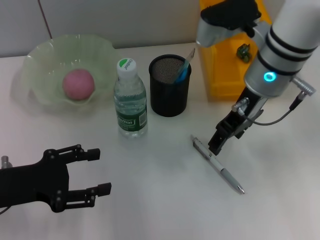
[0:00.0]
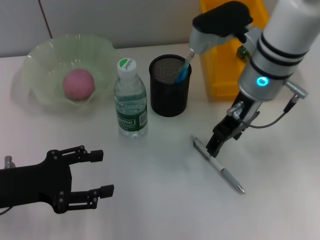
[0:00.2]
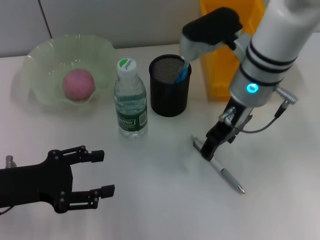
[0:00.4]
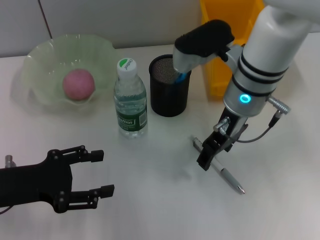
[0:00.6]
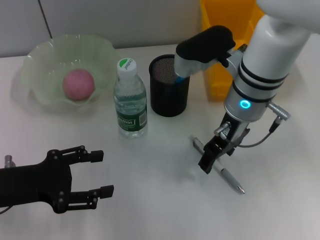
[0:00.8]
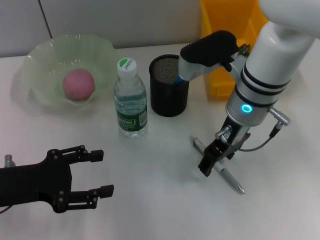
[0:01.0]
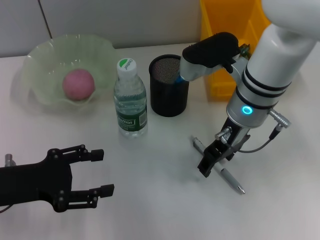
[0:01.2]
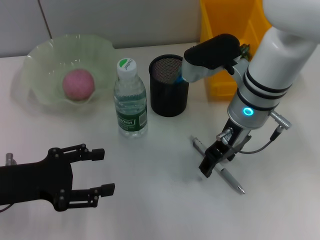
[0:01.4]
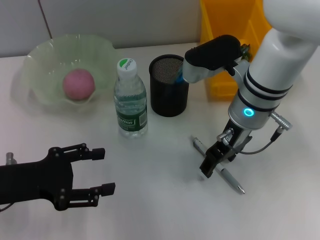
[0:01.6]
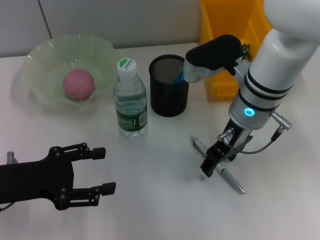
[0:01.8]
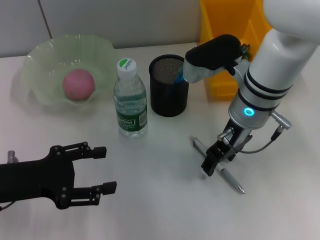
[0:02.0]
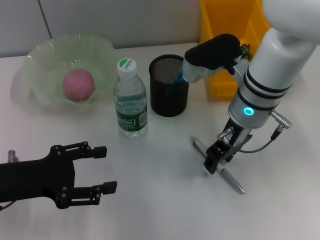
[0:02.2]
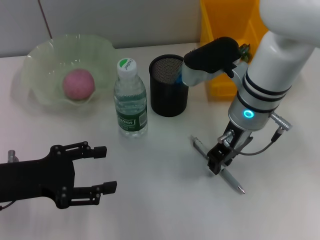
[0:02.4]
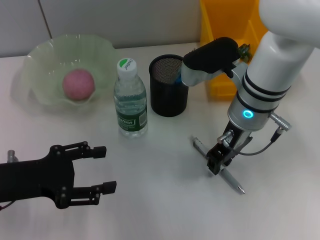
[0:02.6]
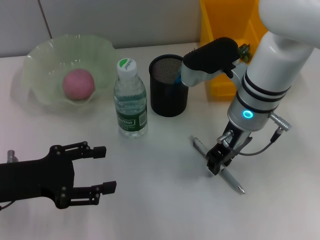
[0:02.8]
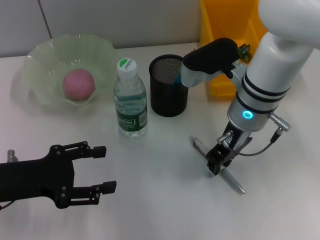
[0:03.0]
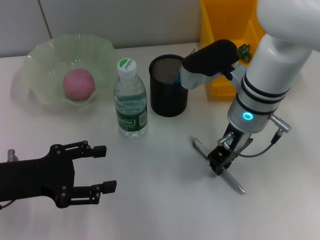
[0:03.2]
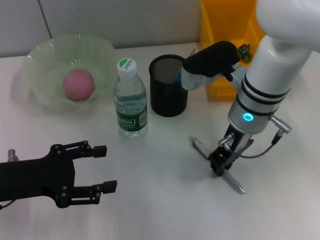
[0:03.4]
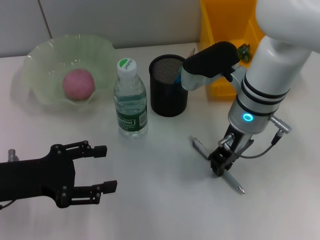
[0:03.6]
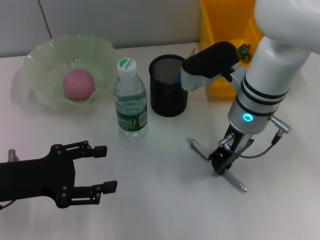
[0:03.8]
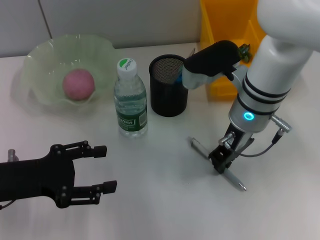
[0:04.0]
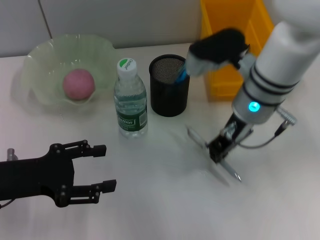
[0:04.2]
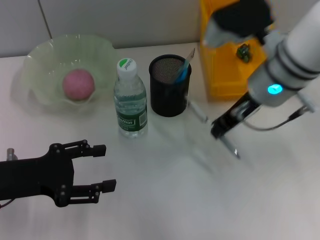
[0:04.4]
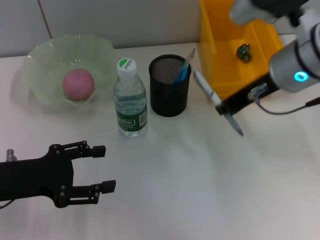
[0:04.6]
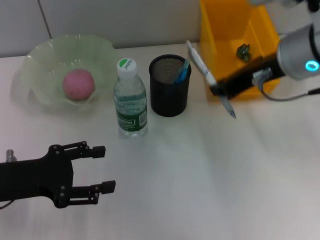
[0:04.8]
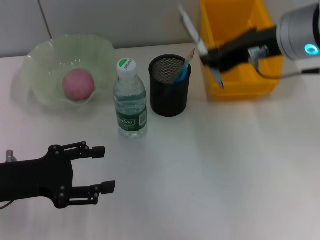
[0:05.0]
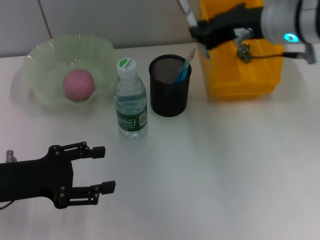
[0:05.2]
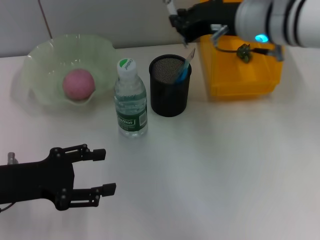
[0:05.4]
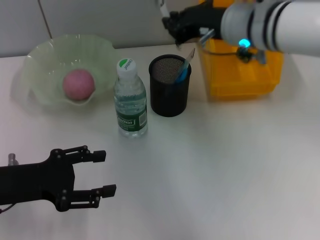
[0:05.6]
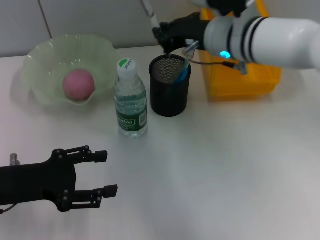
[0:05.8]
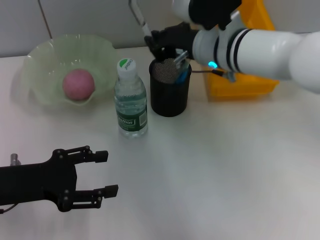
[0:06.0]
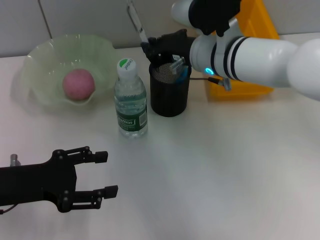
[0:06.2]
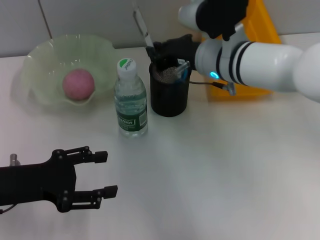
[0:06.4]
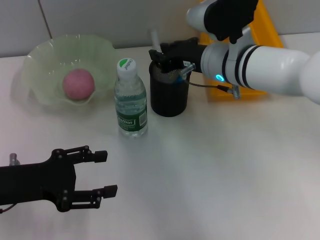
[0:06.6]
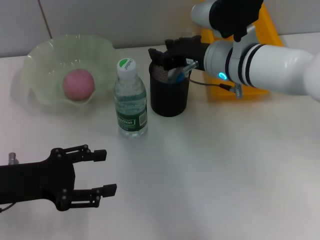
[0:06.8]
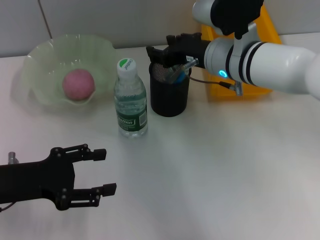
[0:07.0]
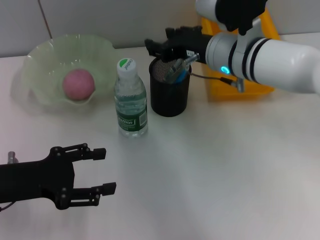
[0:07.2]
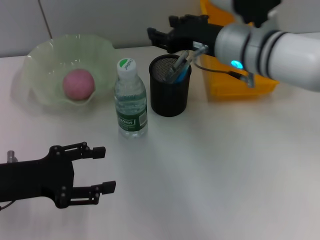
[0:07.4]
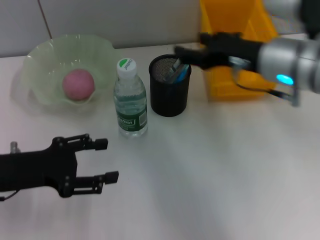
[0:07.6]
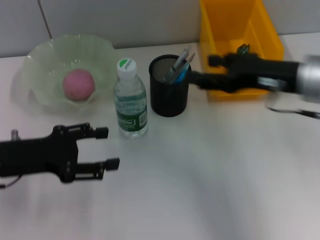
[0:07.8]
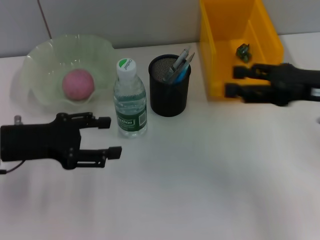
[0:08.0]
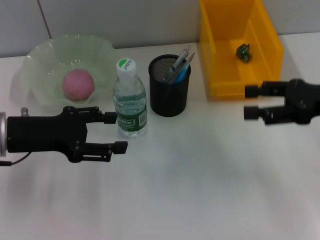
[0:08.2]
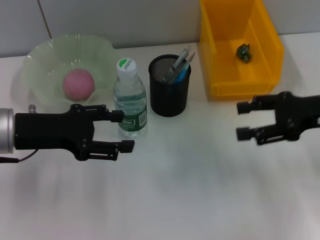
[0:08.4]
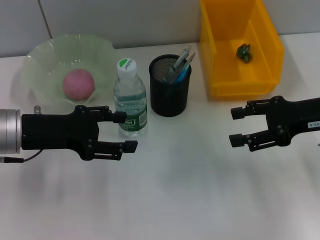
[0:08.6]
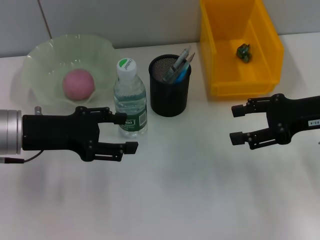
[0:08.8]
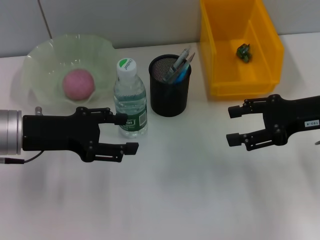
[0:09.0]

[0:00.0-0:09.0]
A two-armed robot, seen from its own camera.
Step, 0:00.0 to 0:03.8: Grab the gray spring-action pen with the right hand.
Step, 0:04.0 to 0:06.6: Place the gray spring-action pen into the pen holder with the right hand.
0:00.0 to 0:01.6: The right gripper moves approximately 5 cm.
0:01.6 to 0:03.0: The right gripper closes.
0:03.0 to 0:04.4: The right gripper shifts approximately 5 cm upward.
0:04.4 to 0:06.0: The right gripper moves forward, some 5 cm.
0:06.0 to 0:07.6: The right gripper goes roughly 10 cm to the right and backward, and opens its fingers.
0:07.6 to 0:09.0: The left gripper moves roughly 5 cm, while the right gripper moves to the right, roughly 10 cm.

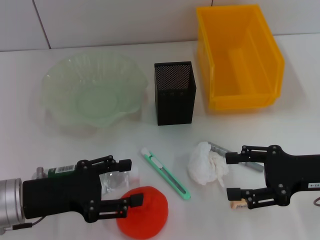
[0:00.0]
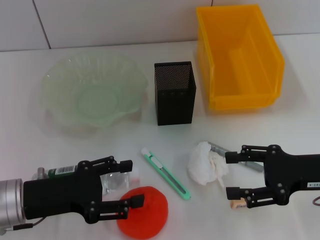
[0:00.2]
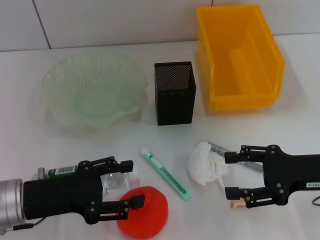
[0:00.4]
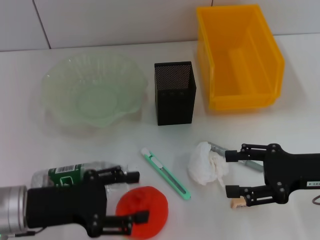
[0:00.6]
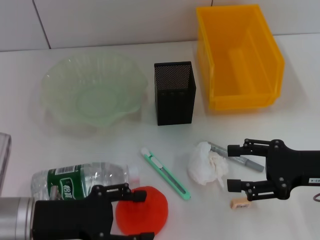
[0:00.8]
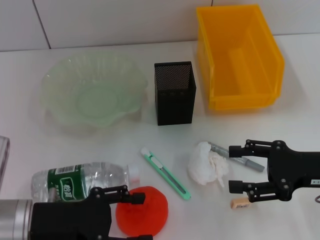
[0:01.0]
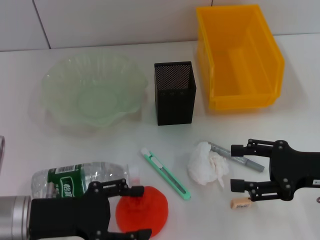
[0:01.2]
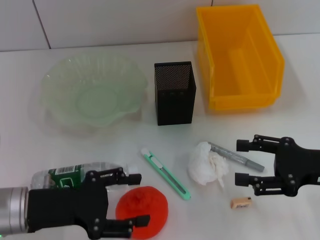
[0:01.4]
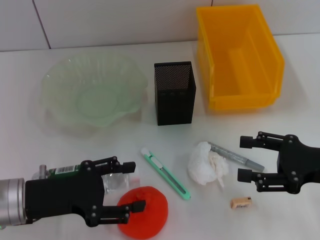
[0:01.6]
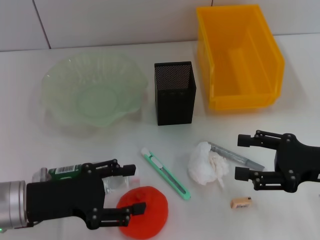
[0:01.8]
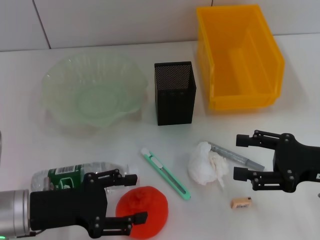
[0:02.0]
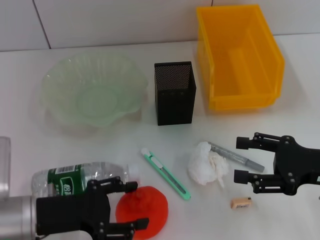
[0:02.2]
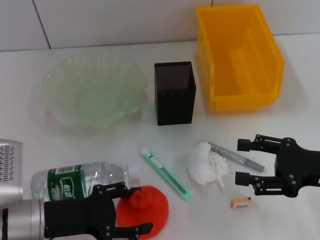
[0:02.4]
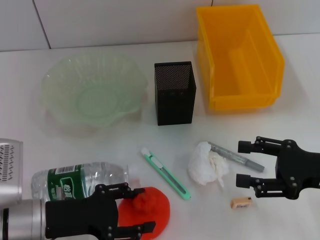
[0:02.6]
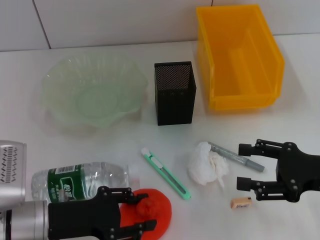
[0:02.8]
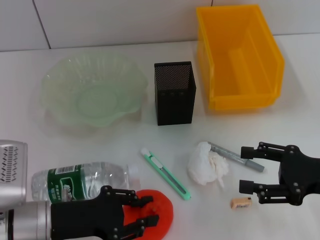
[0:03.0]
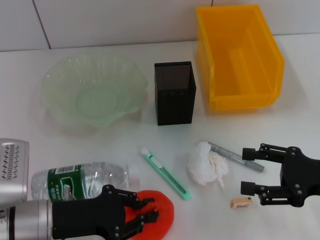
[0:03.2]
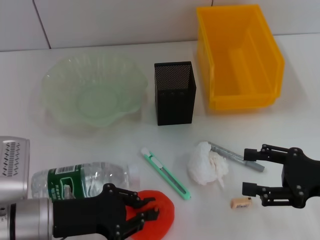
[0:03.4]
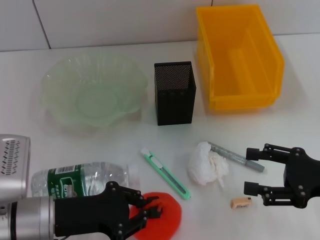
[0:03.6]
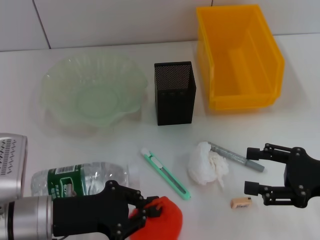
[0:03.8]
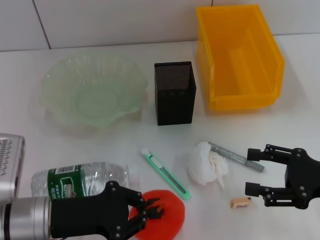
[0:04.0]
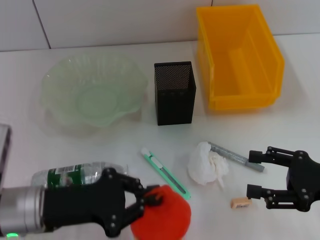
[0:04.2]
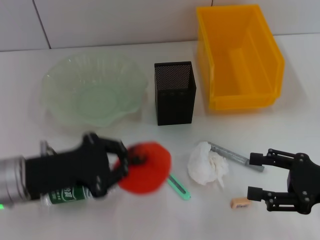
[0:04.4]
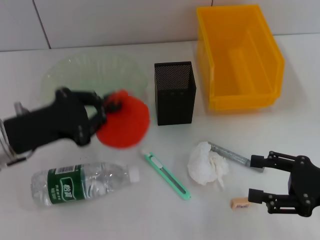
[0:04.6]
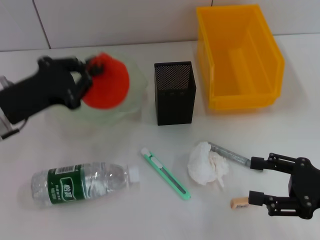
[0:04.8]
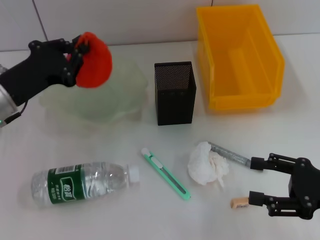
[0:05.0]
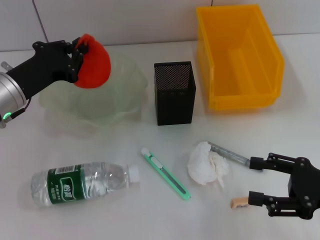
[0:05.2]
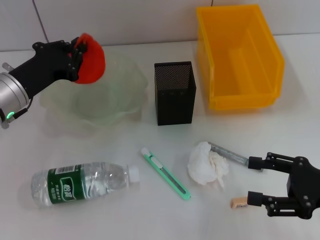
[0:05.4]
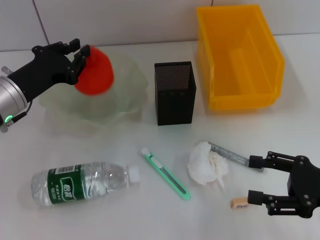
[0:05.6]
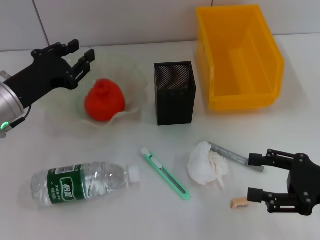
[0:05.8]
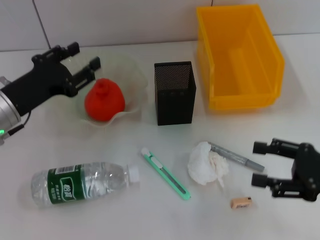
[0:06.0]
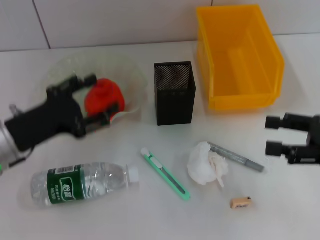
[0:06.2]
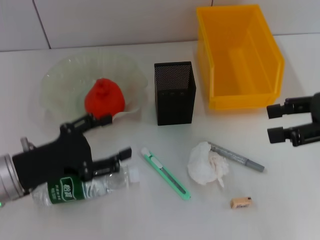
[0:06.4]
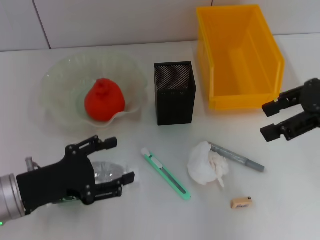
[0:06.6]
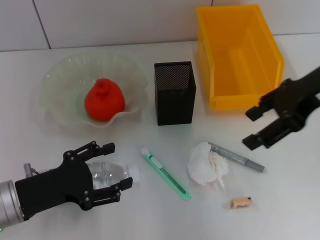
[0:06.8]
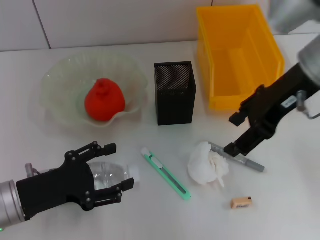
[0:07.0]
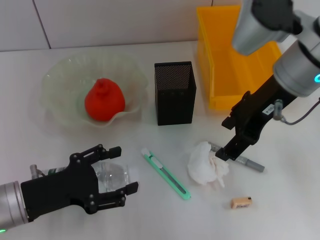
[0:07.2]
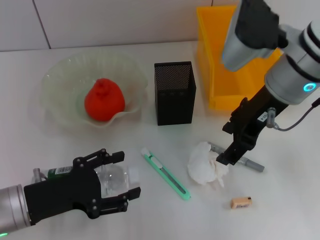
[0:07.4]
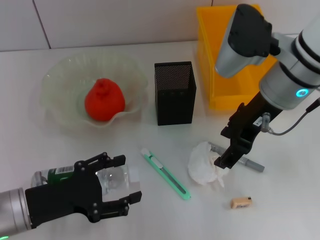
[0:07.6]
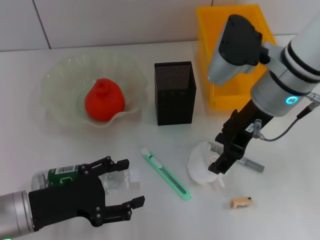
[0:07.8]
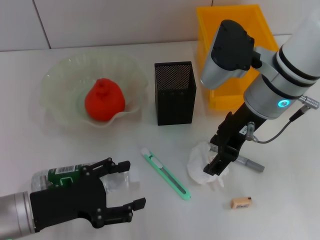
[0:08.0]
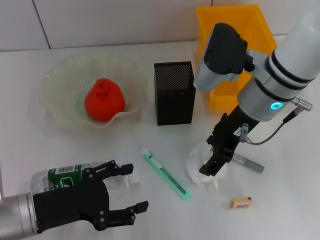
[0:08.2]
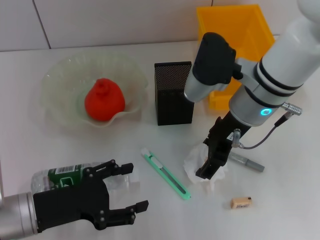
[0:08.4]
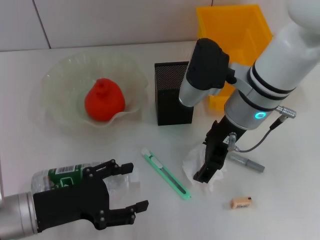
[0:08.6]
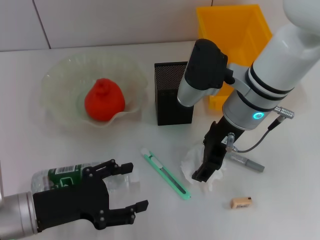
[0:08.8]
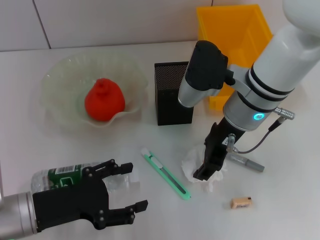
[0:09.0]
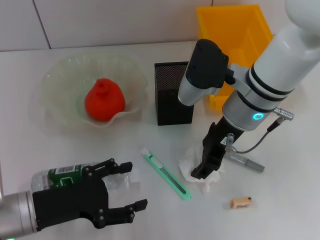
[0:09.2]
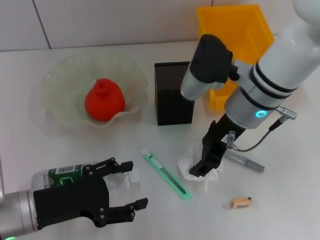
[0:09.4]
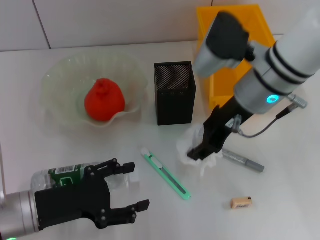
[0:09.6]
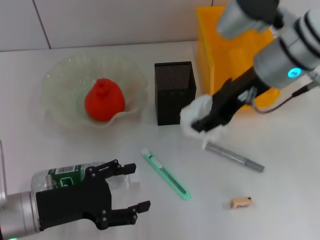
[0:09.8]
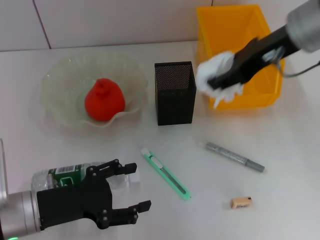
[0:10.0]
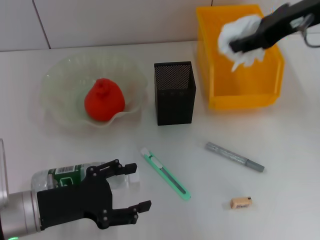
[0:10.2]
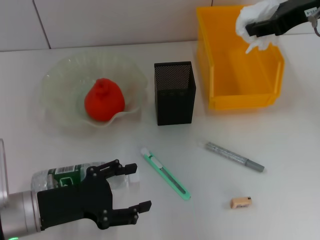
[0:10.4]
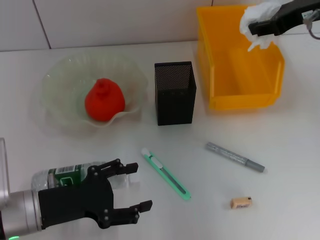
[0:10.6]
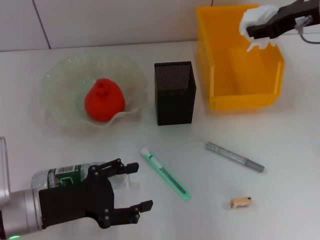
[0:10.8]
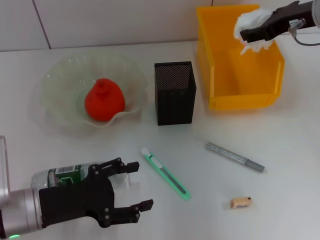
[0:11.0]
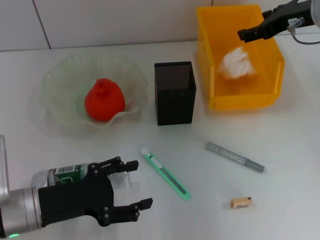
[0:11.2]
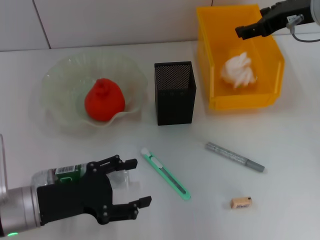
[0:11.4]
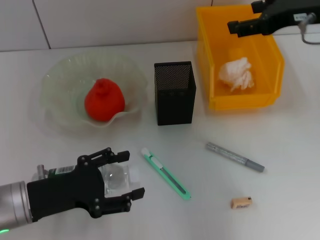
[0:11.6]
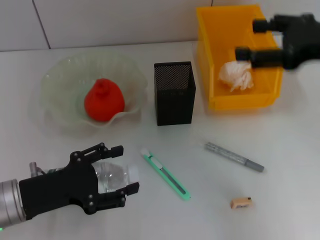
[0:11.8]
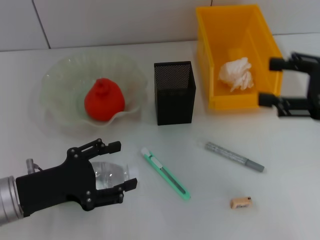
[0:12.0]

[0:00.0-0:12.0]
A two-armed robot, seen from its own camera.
Step, 0:00.0 to 0:03.4: Grab the orange with the left hand.
Step, 0:03.6 to 0:05.6: Place the orange into the fruit bowl with the left hand.
Step, 0:06.0 to 0:09.2: Grab the paper ball with the right hand.
Step, 0:09.4 to 0:11.2: Place the paper ball into the trash can with the right hand.
0:00.0 to 0:03.0: There are only small adjustments of the grippers.
0:03.0 to 0:04.4: The left gripper shifts approximately 5 cm upward, and closes up.
0:04.4 to 0:06.0: The left gripper travels forward by approximately 10 cm, and opens.
0:06.0 to 0:07.6: The left gripper shifts some 10 cm backward, and opens; the right gripper shifts about 25 cm to the left, forward and upward.
0:07.6 to 0:09.0: The right gripper changes place by about 5 cm.
0:09.0 to 0:10.4: The right gripper is displaced to the right and upward by approximately 20 cm, and closes up.
0:10.4 to 0:12.0: The right gripper travels backward, downward and to the right by some 15 cm, and opens.

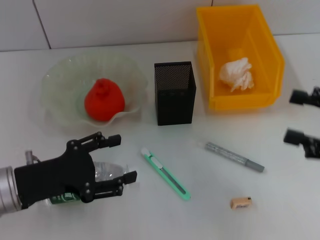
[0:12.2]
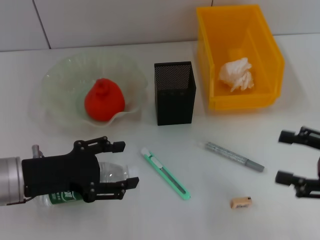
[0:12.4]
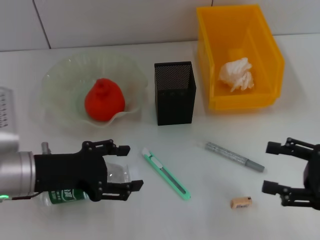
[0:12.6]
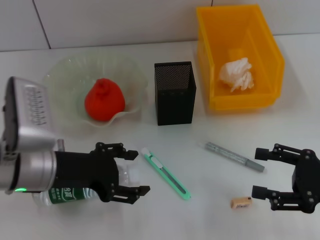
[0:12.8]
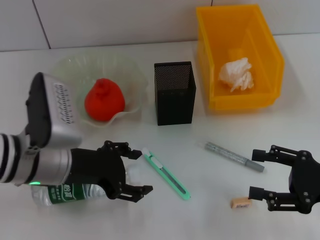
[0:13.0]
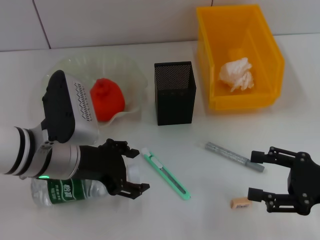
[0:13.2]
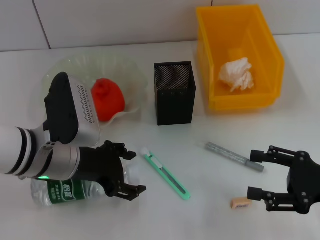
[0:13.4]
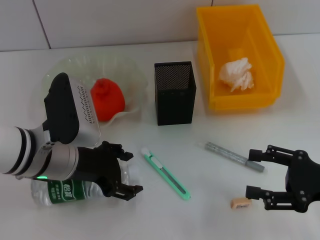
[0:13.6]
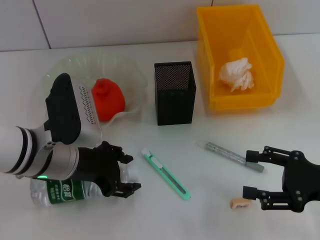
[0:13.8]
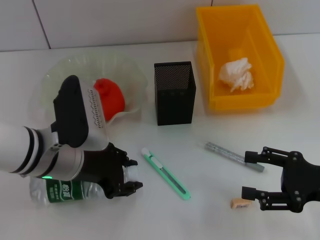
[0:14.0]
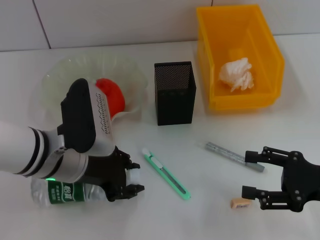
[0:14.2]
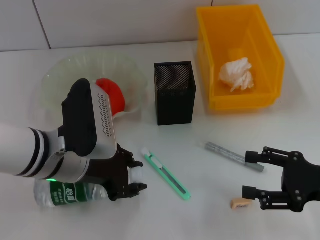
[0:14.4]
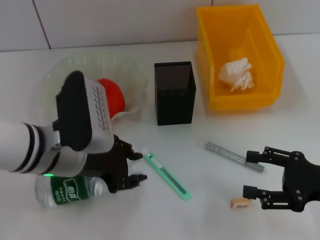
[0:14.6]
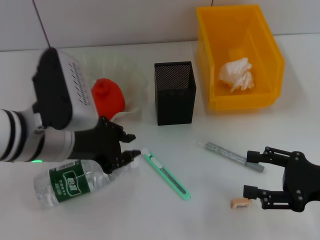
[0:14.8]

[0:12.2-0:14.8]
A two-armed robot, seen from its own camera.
Step, 0:12.2 to 0:14.0: Grab the water bottle with the left hand.
0:12.2 to 0:13.4: The right gripper moves downward, approximately 5 cm. The left gripper heads to the right and forward, covering roughly 10 cm.
0:13.4 to 0:14.8: The left gripper closes its fingers.
